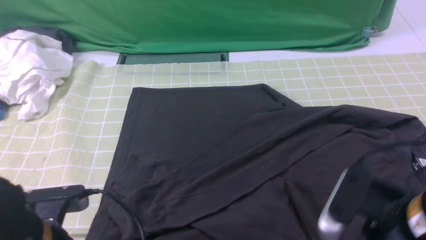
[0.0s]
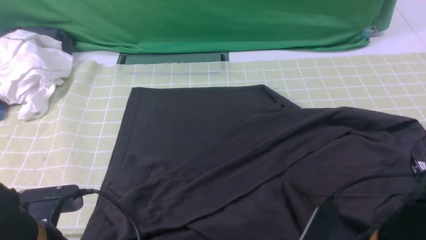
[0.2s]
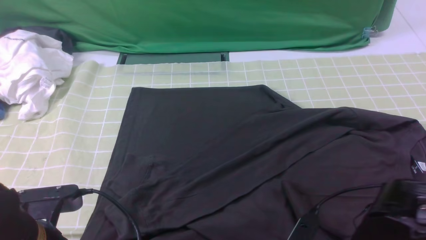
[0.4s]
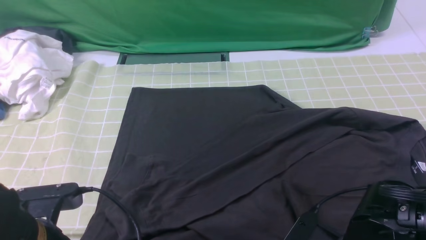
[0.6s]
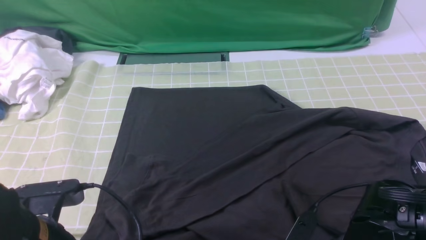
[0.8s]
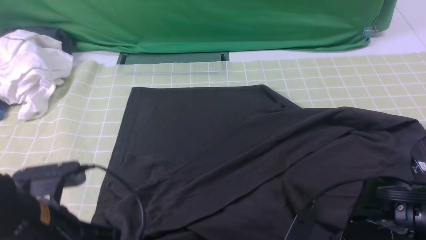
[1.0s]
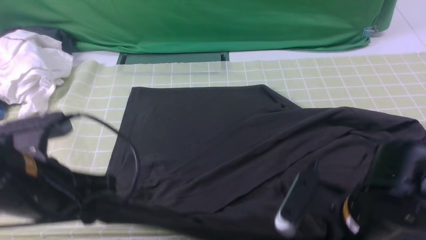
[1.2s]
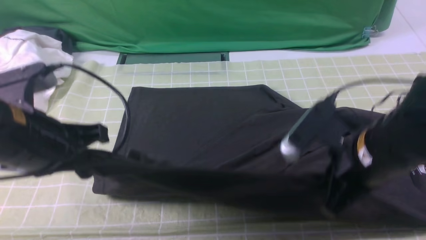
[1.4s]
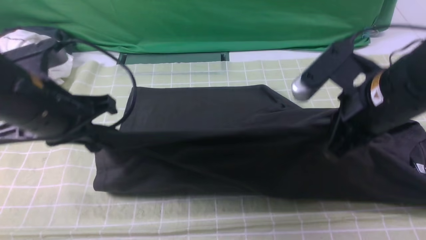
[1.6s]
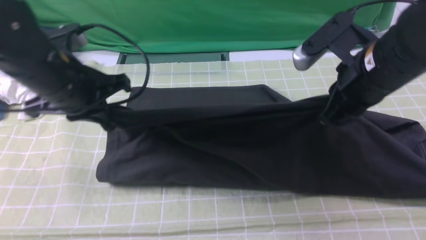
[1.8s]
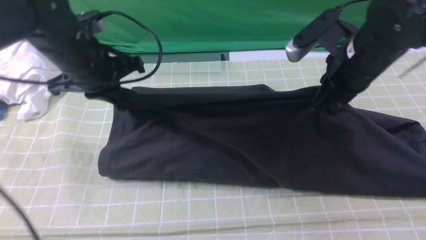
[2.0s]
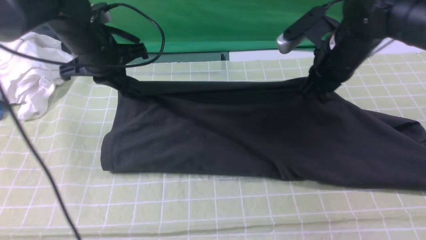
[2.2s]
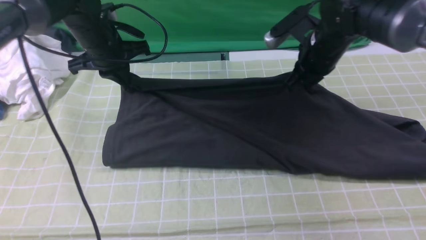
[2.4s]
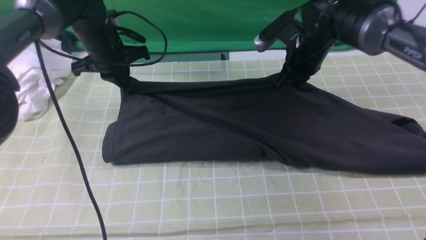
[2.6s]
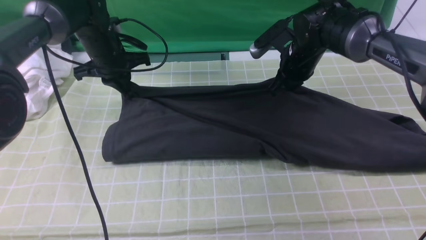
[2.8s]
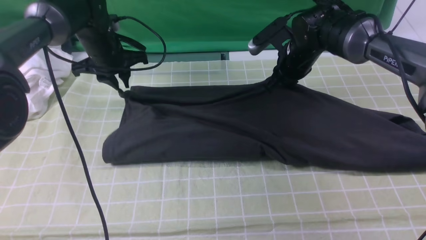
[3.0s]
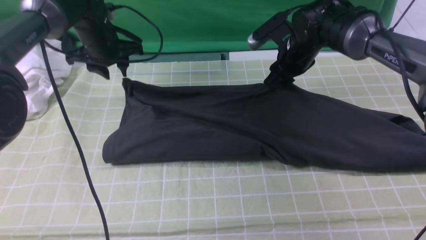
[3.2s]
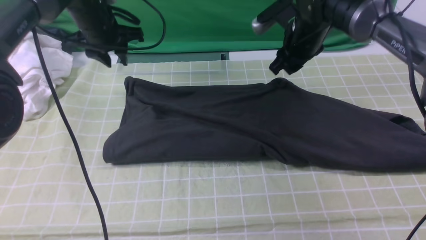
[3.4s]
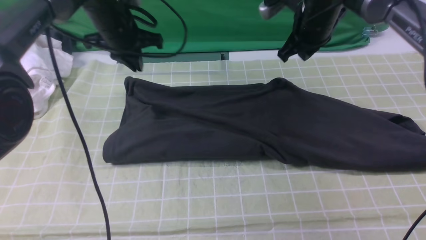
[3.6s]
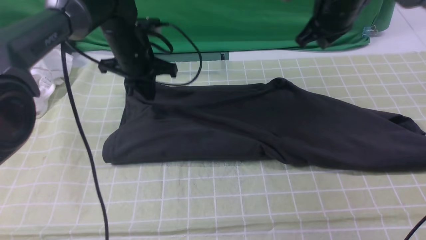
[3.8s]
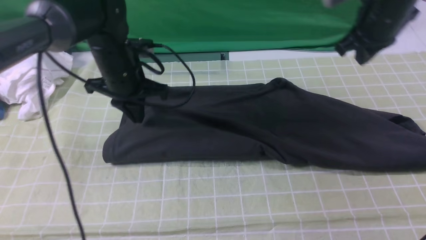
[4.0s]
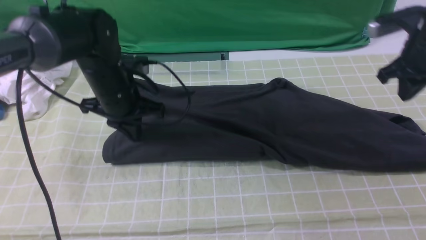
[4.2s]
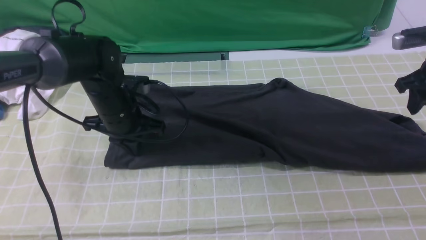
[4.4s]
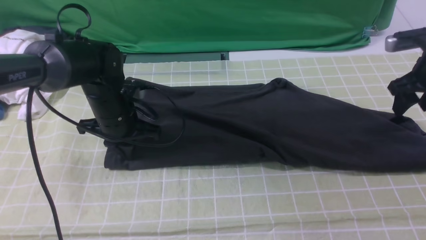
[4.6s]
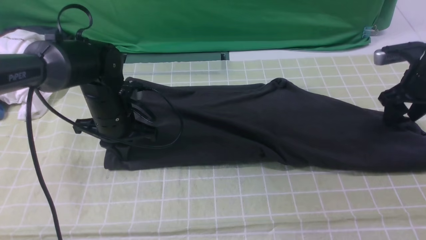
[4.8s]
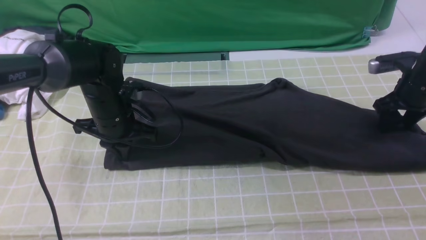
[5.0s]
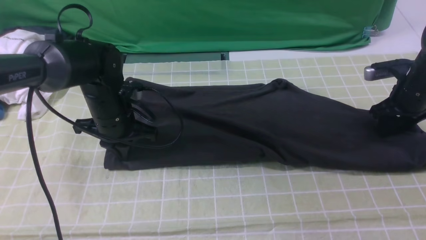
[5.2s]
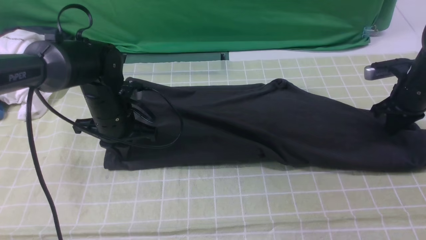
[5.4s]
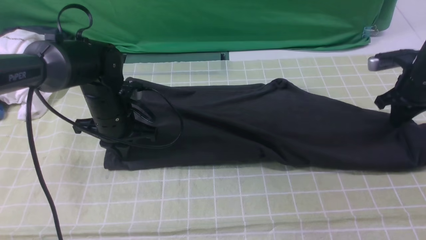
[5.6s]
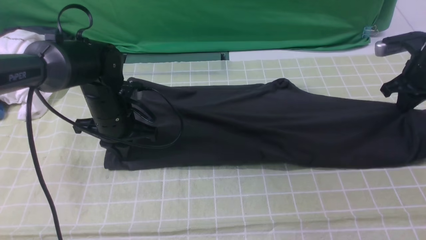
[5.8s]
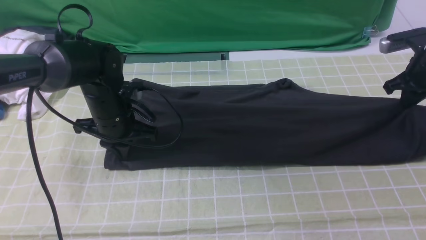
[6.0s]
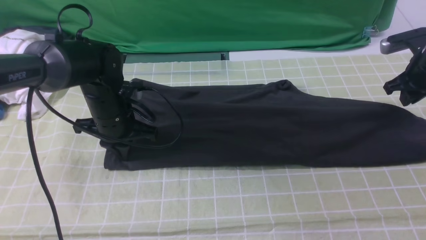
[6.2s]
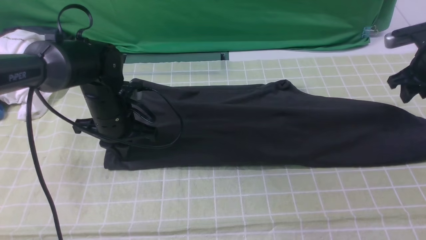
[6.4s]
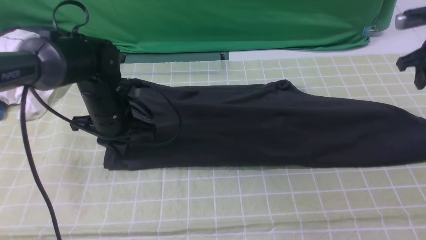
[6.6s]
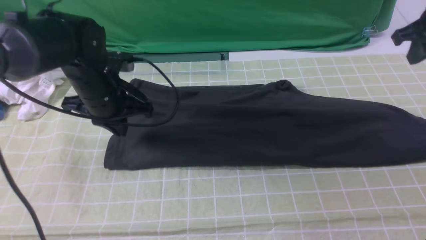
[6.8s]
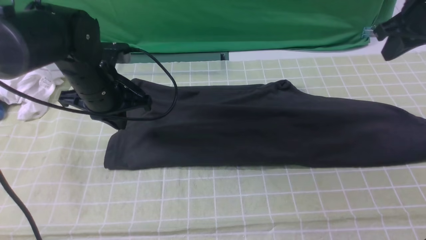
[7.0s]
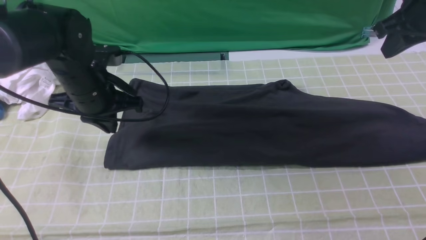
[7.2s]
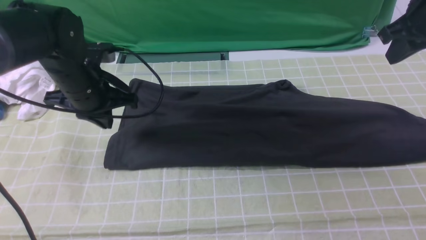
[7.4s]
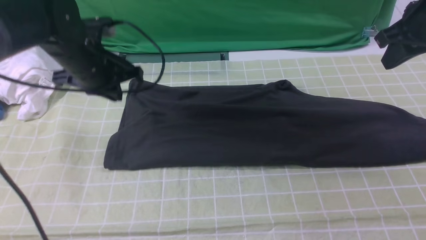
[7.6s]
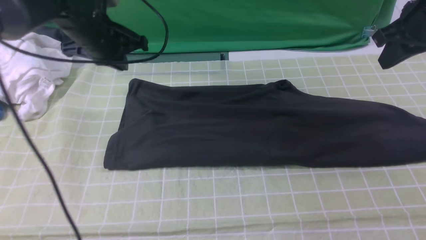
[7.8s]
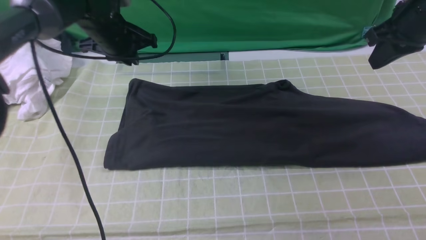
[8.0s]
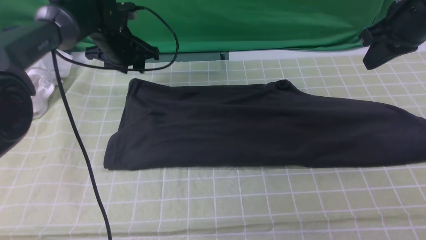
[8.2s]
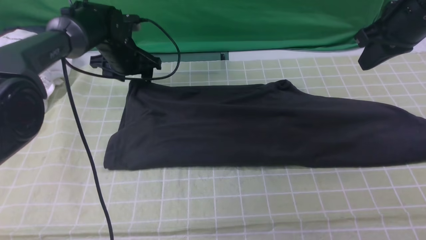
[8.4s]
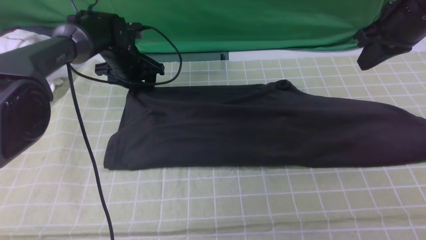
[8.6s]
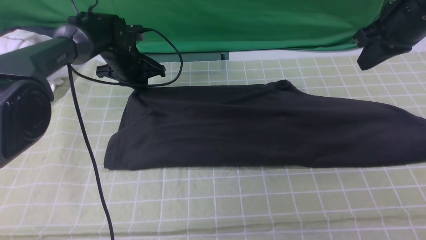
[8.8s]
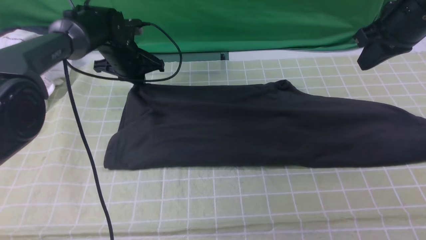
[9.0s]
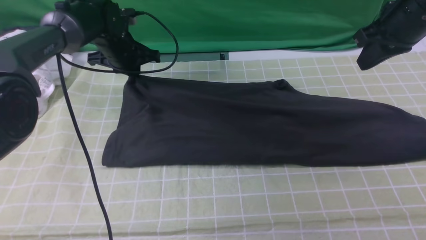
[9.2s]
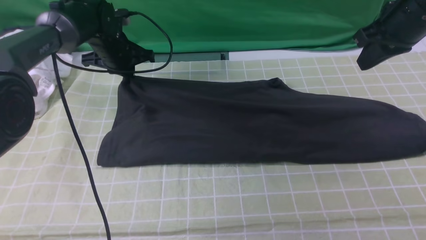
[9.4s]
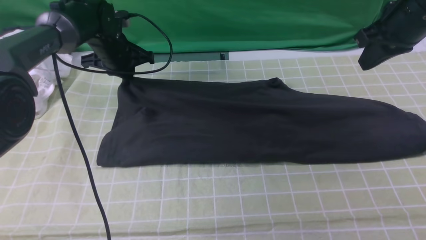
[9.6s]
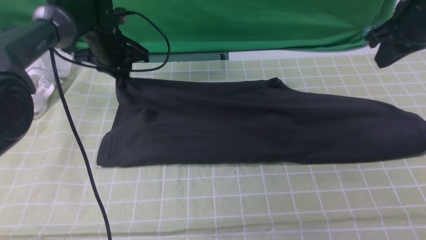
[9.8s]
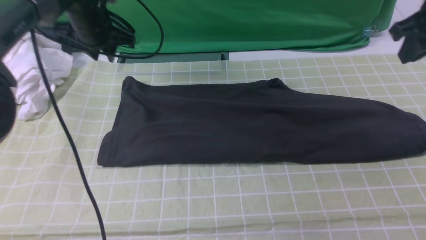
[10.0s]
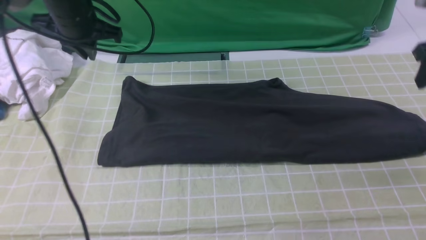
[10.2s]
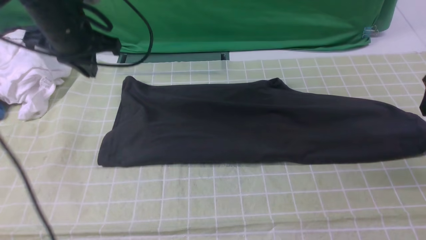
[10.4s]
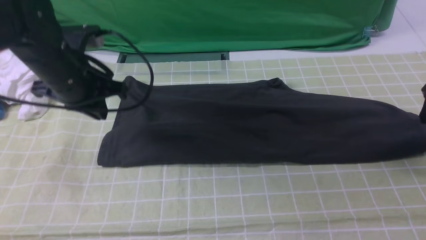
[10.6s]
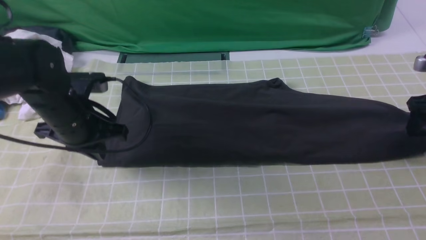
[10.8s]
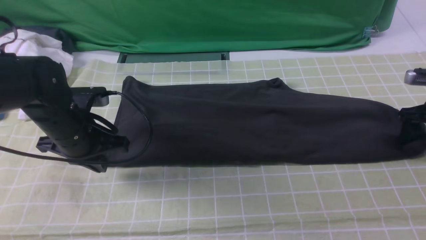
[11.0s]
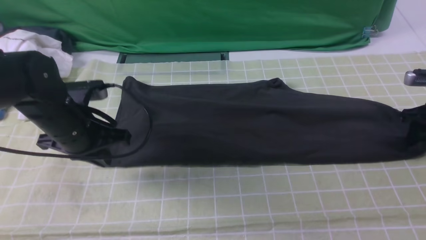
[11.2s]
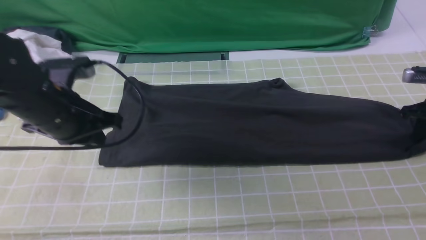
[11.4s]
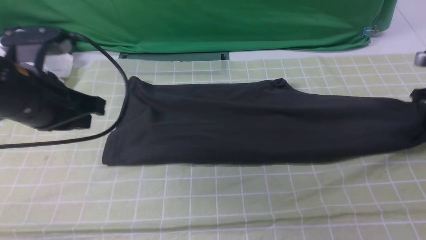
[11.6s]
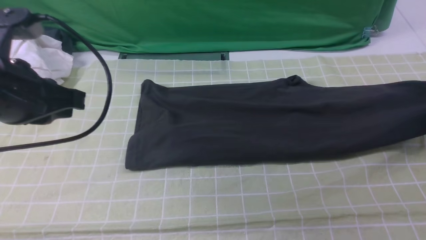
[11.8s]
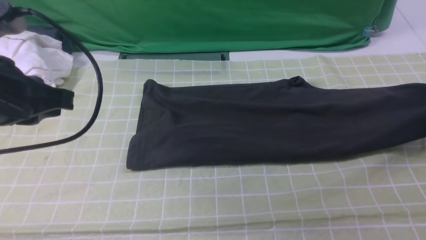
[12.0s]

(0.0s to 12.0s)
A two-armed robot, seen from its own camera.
Step, 1.0s - 3.4s: use both arms to drag the lower edge of the fabric forward and fold it over the upper edge.
Step, 3.6s - 11.2s: use the right arm to clamp the right edge of the fabric.
0.0s - 1.6s: Both grippers travel together forward and upward, about 15 cm. The right gripper opens, then closes once more.
1.6s - 3.0s: The left gripper travels forward by approximately 25 cm, and opens; the right gripper goes approximately 25 cm forward and downward.
3.0s - 4.4s: The right gripper travels to the right by approximately 20 cm, and closes and opens again, while the left gripper goes some 10 cm backward, and closes up.
4.4s - 6.0s: The right gripper ends up some 5 cm from where it was, and closes its fingers.
6.0s - 7.6s: The left gripper goes approximately 10 cm upward; the right gripper heads upward and to the left, covering approximately 15 cm.
7.6s - 9.0s: The left gripper goes about 15 cm forward and downward, and opens, then closes again.
9.0s - 10.4s: The right gripper moves to the right and downward, about 15 cm, and opens up. Meanwhile the left gripper goes some 15 cm backward and upward.
10.4s - 12.0s: The right gripper travels downward and back again, some 10 cm each way, and closes. Meanwhile the left gripper goes about 20 cm backward.

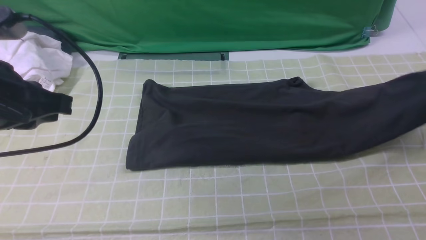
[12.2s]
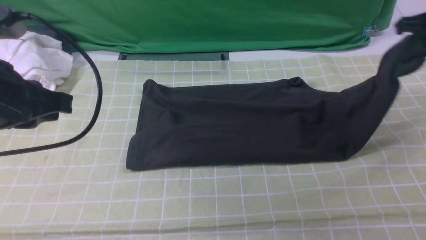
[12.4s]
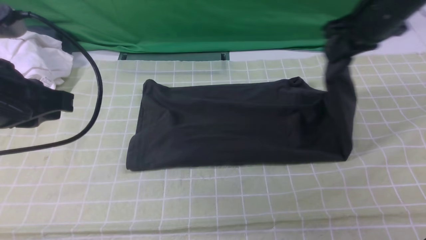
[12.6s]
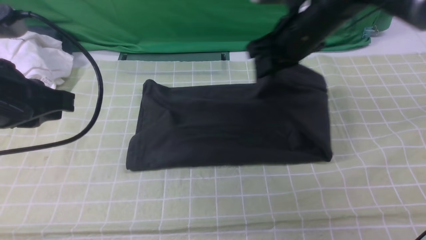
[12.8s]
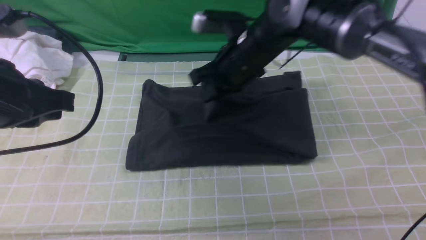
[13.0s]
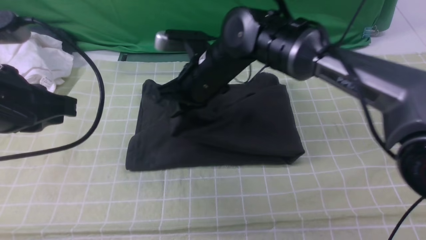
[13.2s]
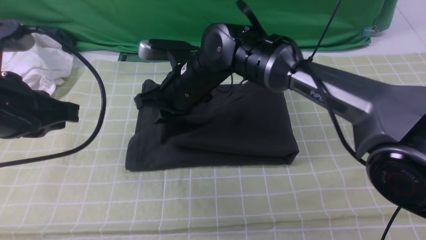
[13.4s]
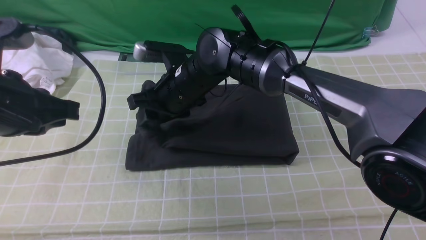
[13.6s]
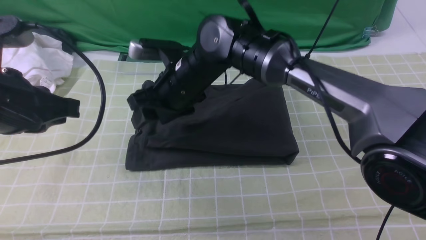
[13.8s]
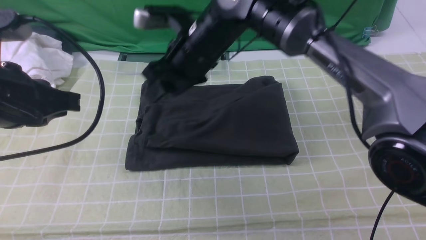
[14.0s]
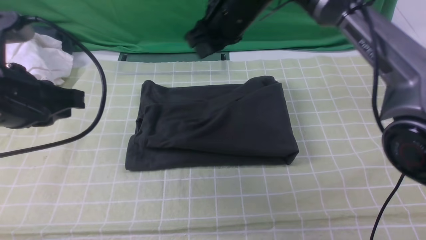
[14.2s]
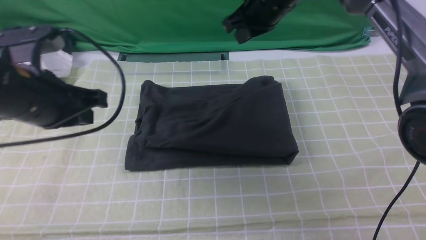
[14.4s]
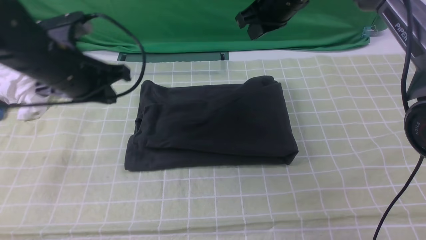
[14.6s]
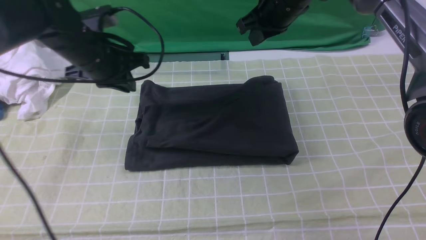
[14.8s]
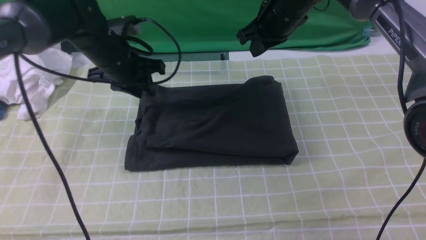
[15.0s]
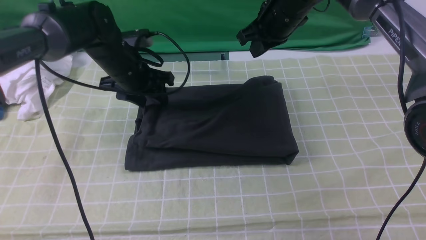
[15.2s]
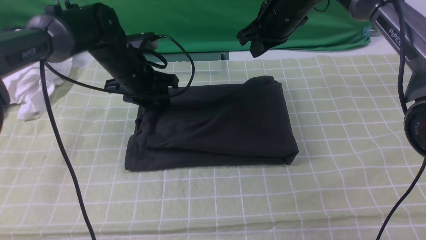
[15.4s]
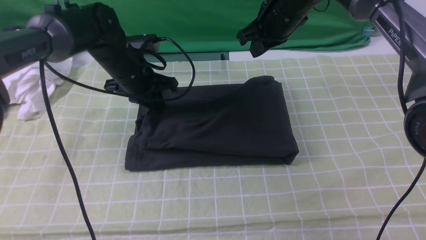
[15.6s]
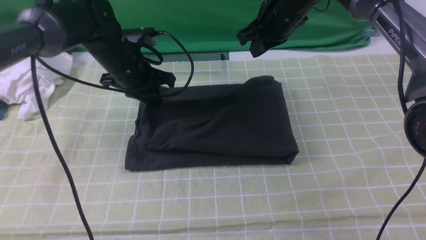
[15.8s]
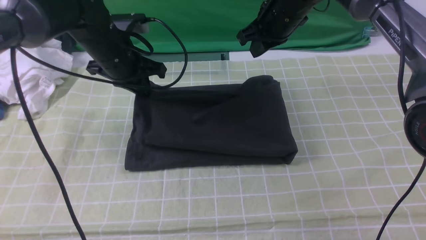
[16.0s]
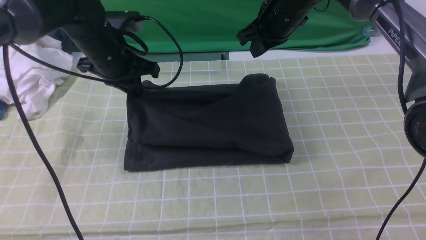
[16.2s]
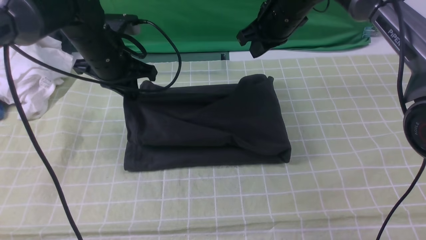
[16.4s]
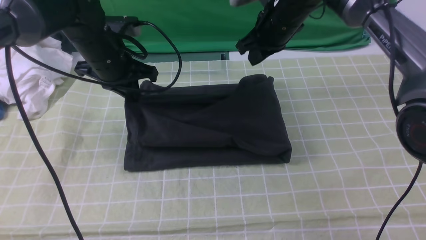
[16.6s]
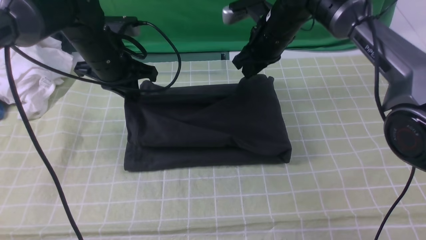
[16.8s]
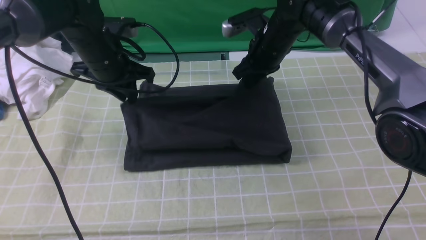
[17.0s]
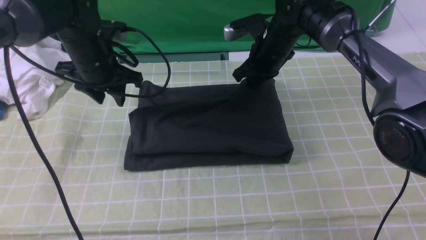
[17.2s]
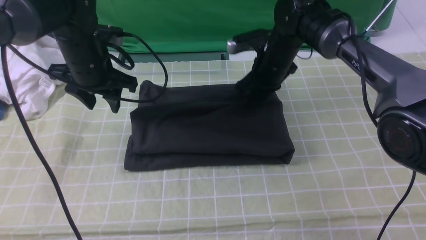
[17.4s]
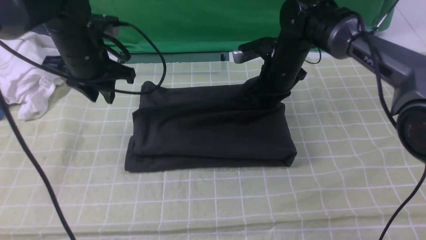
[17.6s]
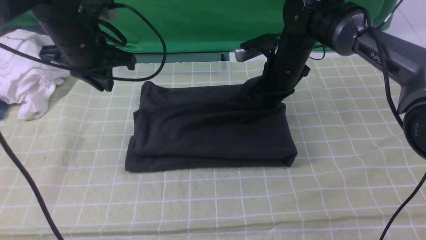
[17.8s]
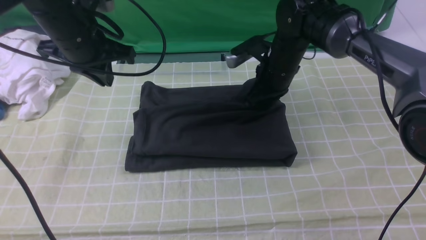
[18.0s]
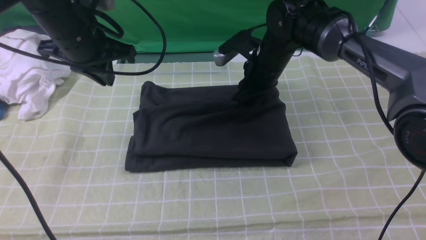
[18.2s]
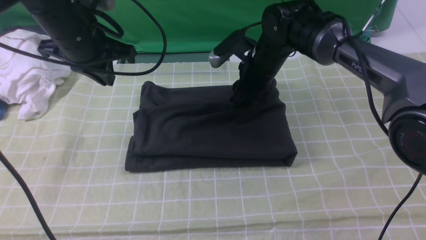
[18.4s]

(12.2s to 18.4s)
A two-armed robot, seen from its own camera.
Step, 12.2s - 13.8s: use the right arm to drag the right edge of the fabric to the left and folds it over the left edge.
12.2s - 13.8s: The right gripper moves to the left, some 40 cm, and opens up.
13.8s - 15.4s: The right gripper goes roughly 15 cm to the right and forward, and closes, while the left gripper moves forward and downward, approximately 25 cm, and opens.
15.4s - 16.8s: The right gripper goes some 5 cm downward. The left gripper changes place by approximately 5 cm, and closes up.
16.8s - 18.4s: The right gripper shifts some 5 cm downward, and opens up. The left gripper is displaced upward by approximately 5 cm, and opens and closes again.
